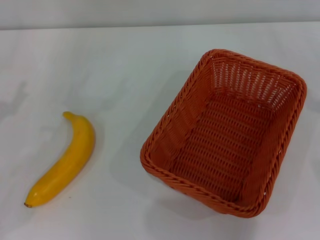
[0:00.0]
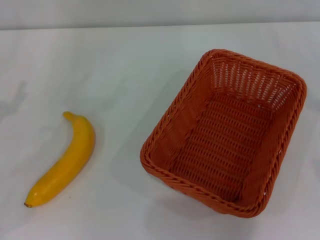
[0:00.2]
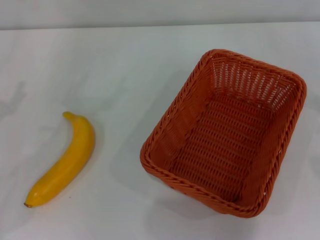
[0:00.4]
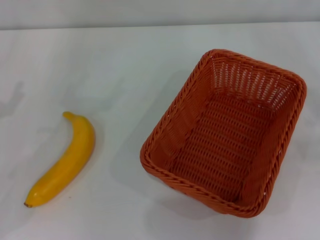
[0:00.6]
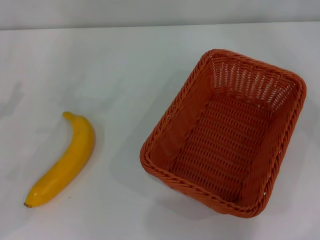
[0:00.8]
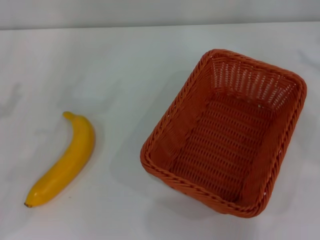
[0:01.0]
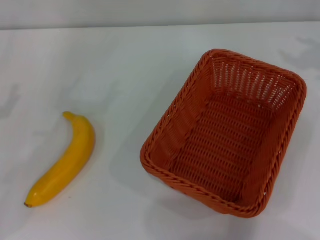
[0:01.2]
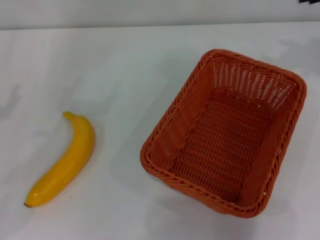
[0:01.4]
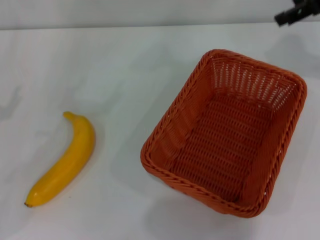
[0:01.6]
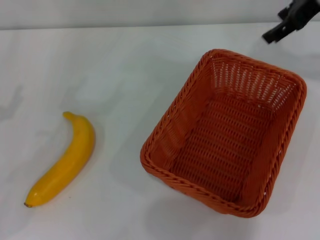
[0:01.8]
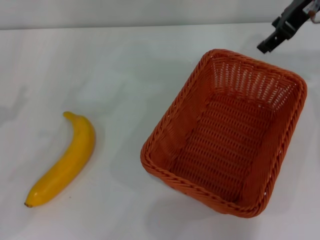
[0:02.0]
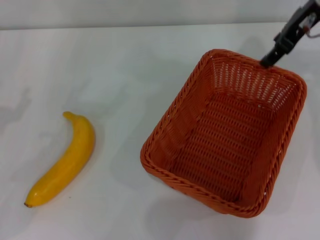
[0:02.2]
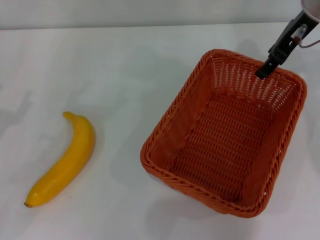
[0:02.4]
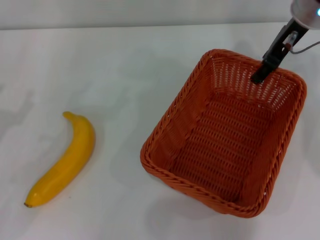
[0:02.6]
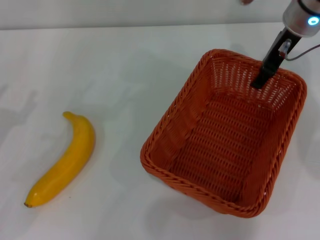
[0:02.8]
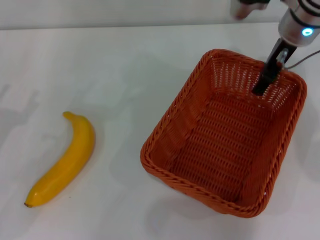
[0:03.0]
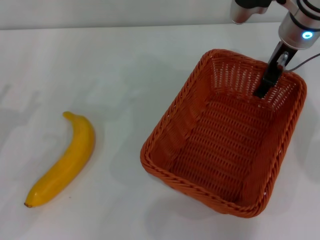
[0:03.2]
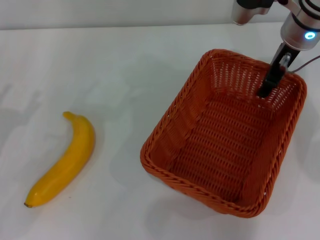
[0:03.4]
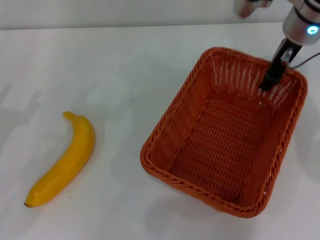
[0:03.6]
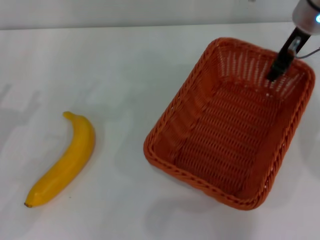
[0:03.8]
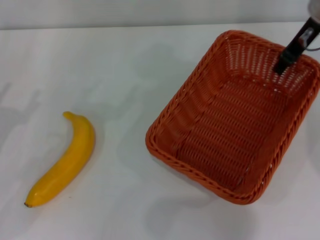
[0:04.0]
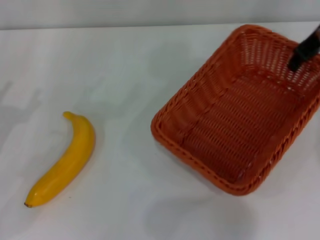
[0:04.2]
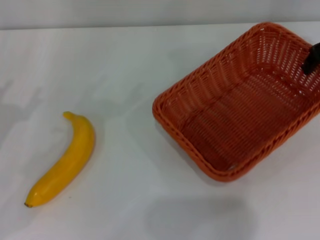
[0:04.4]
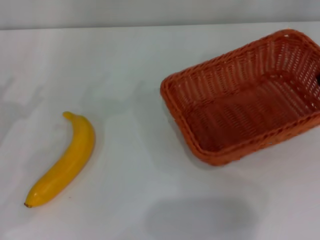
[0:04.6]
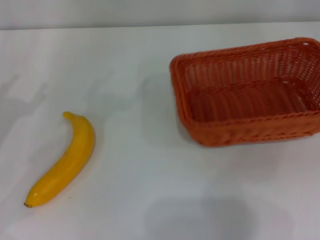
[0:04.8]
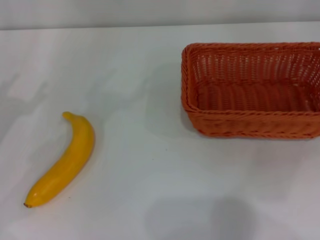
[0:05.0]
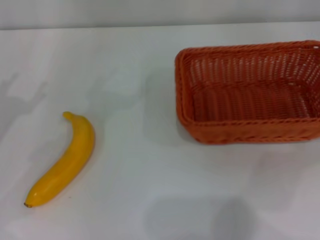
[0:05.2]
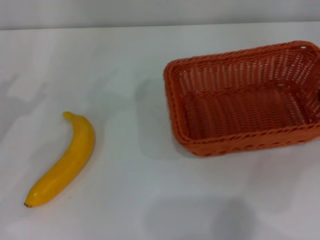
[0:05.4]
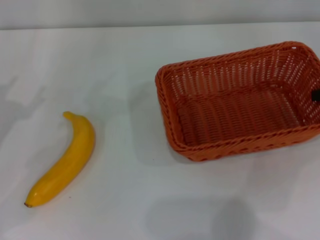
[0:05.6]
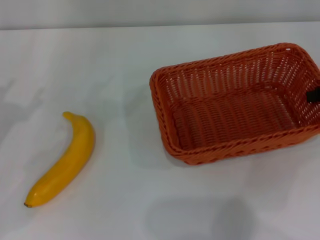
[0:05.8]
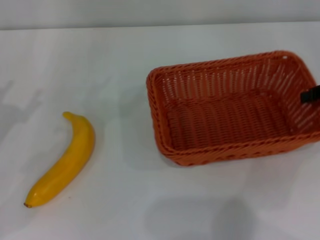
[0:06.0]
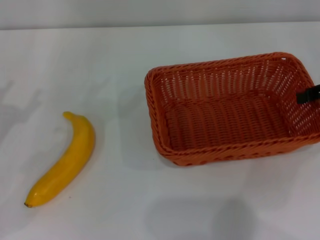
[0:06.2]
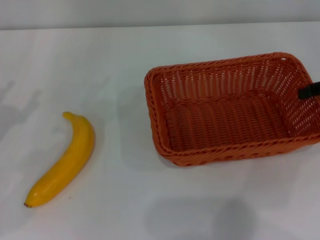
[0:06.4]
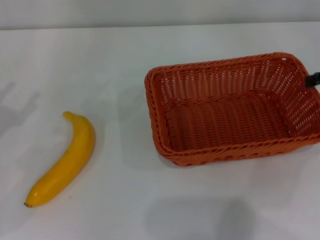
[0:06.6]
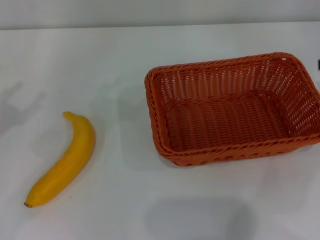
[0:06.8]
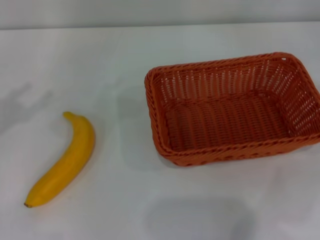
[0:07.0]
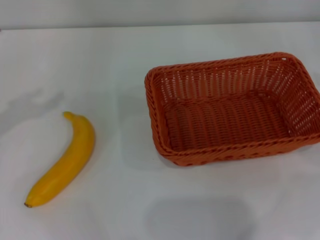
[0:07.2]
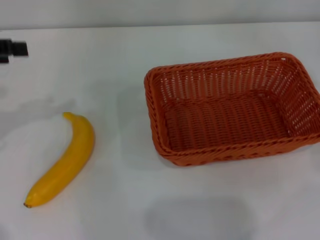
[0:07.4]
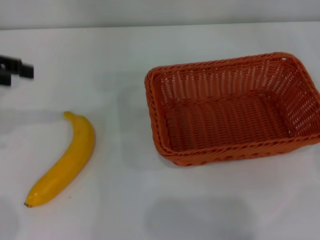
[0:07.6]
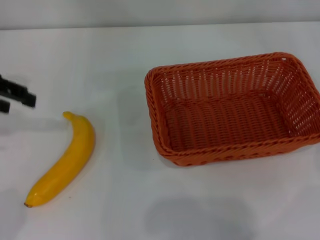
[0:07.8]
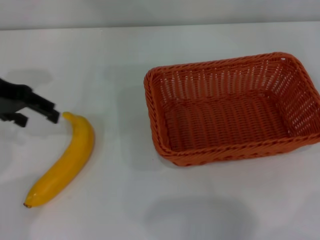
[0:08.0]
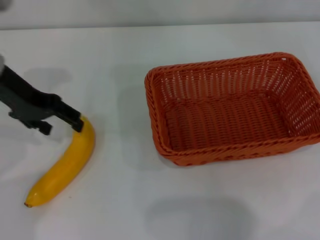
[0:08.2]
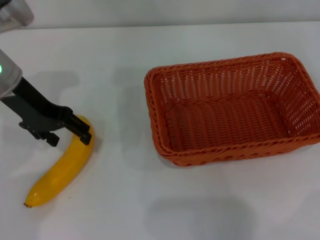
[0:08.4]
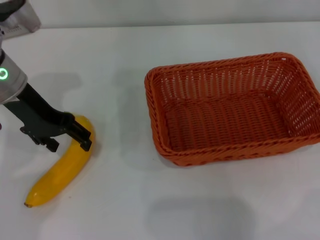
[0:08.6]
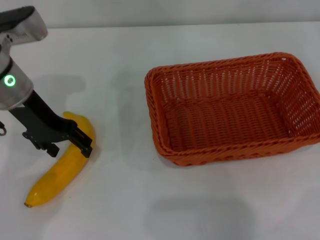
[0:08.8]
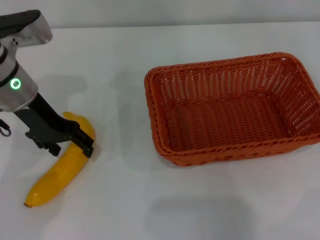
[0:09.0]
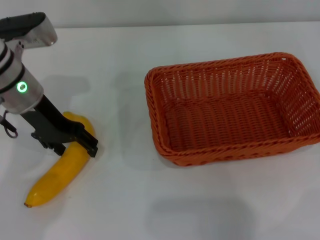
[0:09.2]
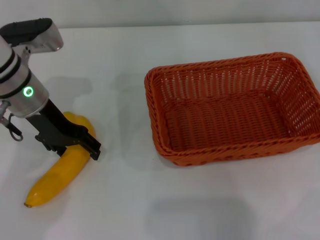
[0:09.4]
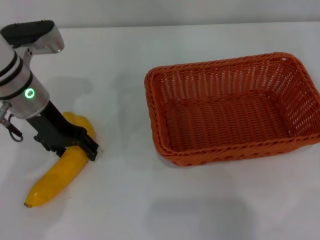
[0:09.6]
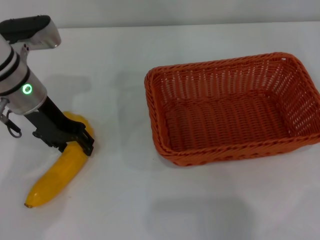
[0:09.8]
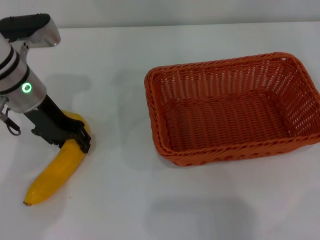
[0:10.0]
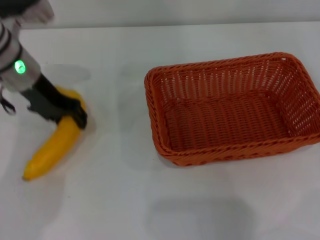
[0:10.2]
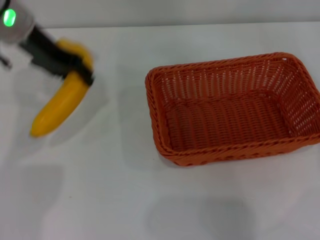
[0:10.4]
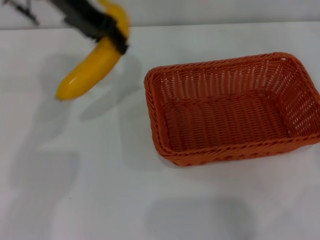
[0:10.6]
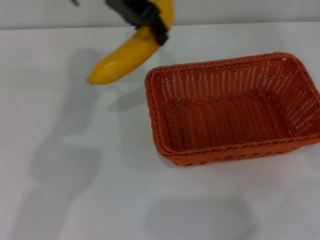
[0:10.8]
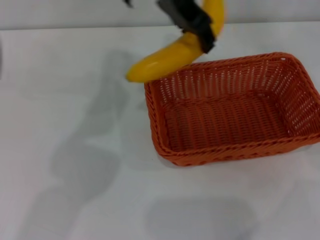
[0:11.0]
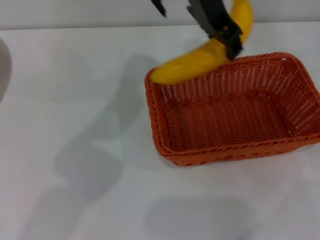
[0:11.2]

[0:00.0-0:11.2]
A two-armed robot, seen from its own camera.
Step, 0:00.0 to 0:04.2: Pick up the light basket with the right gripper.
Step, 0:04.4 to 0:06.6: Place the light basket in the center of view with the right gripper.
Step, 0:06.8 to 0:10.2: Pick up the banana with the left gripper.
0:00.0 to 0:01.6: The right gripper shifts roughly 30 cm upward, forward and to the left.
0:01.6 to 0:03.2: The right gripper shifts about 15 cm to the left and downward.
0:03.2 to 0:04.8: The right gripper heads to the right, covering roughly 20 cm, and closes.
0:04.8 to 0:06.4: The right gripper opens up.
0:06.4 to 0:08.0: The left gripper heads forward, upward and to the right, covering some 20 cm.
0:08.0 to 0:09.6: The left gripper shifts about 10 cm downward and to the right.
0:09.6 to 0:11.2: The left gripper travels to the right and upward by roughly 25 cm, and closes its fingers.

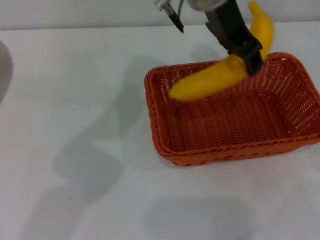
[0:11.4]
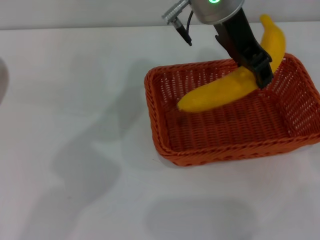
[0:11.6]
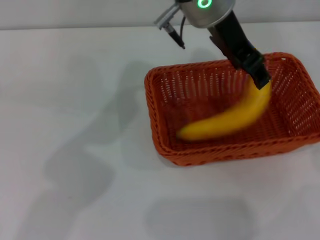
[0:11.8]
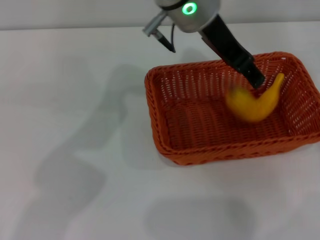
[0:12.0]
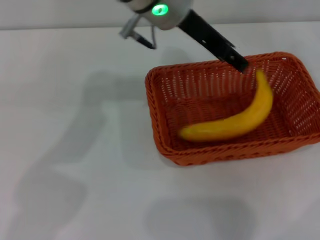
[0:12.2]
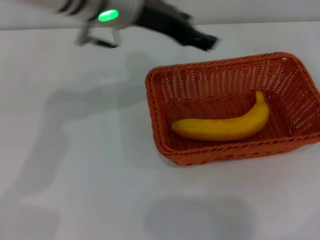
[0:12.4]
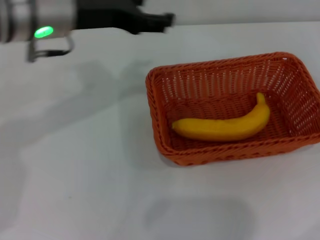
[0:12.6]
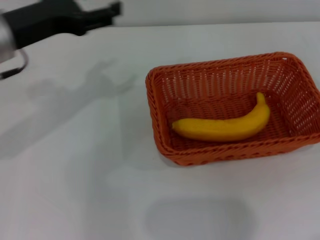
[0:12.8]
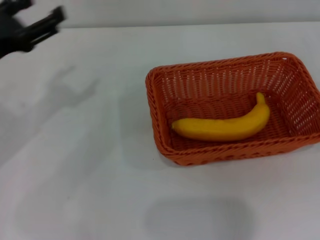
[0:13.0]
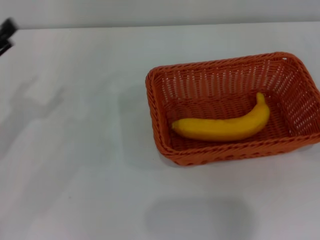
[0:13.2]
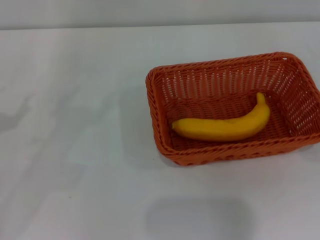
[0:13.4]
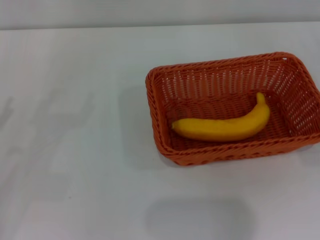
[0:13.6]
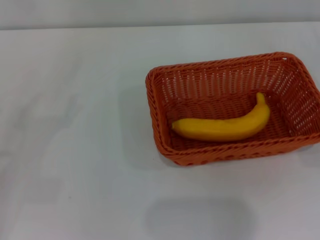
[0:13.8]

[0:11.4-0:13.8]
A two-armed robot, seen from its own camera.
0:11.4 to 0:12.6: The left gripper goes some 20 cm to the left, and opens, while the right gripper travels downward by about 5 cm.
0:12.6 to 0:13.8: The left gripper goes about 30 cm to the left, downward and backward; the right gripper heads downward, covering about 10 cm.

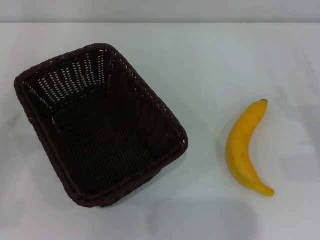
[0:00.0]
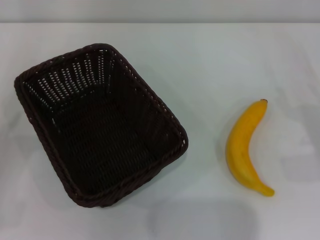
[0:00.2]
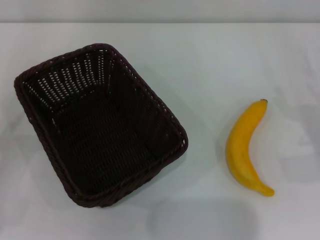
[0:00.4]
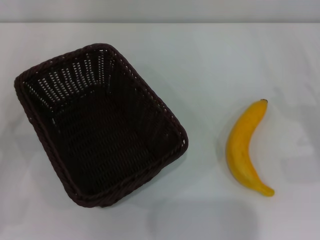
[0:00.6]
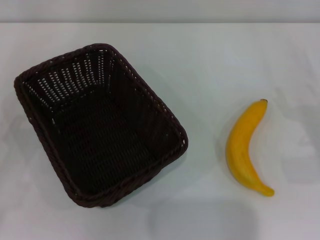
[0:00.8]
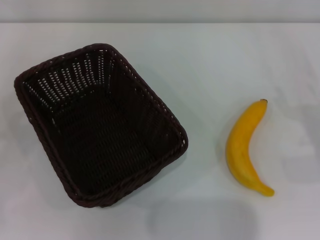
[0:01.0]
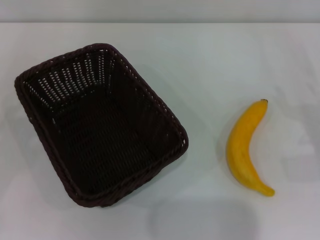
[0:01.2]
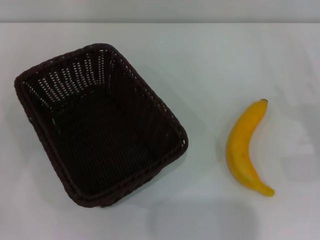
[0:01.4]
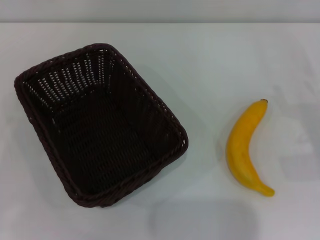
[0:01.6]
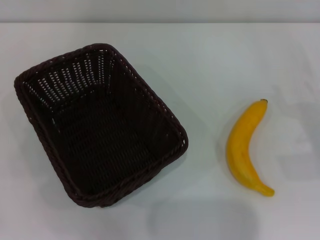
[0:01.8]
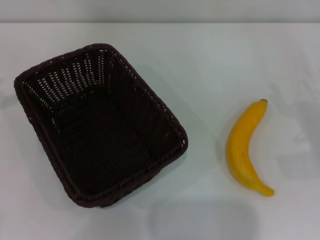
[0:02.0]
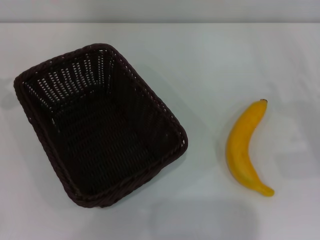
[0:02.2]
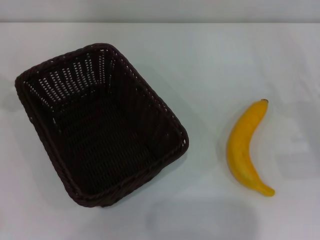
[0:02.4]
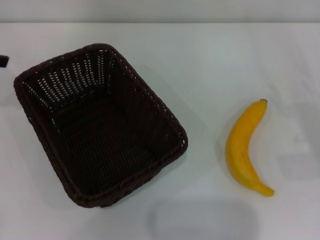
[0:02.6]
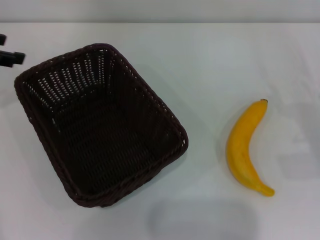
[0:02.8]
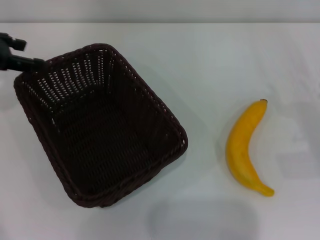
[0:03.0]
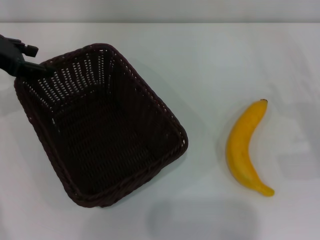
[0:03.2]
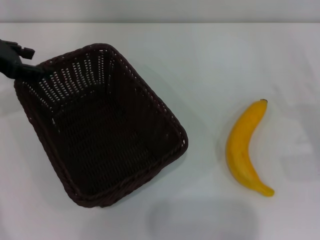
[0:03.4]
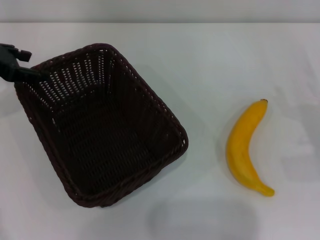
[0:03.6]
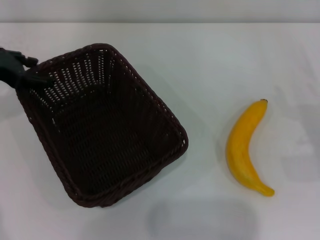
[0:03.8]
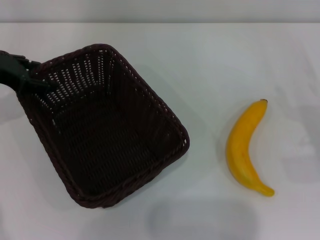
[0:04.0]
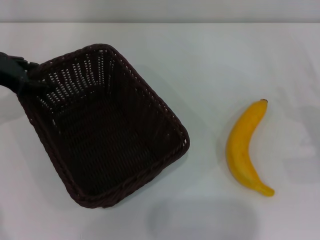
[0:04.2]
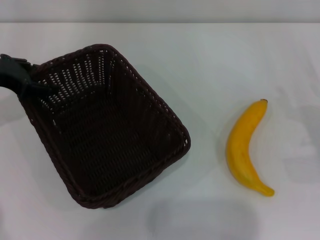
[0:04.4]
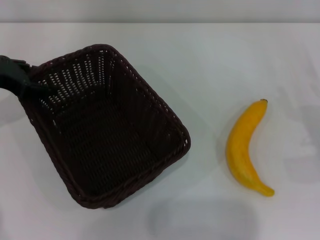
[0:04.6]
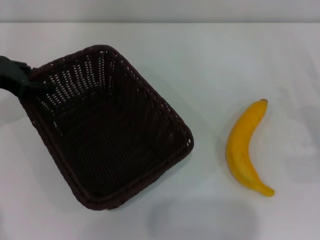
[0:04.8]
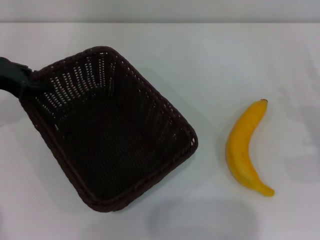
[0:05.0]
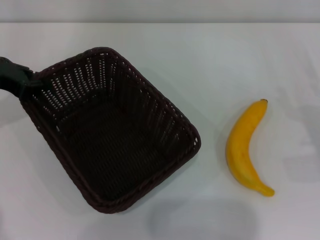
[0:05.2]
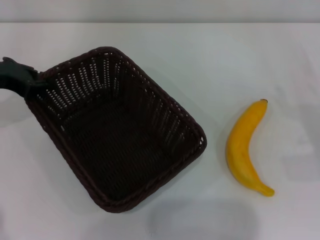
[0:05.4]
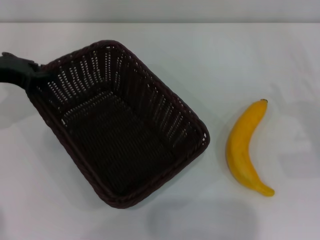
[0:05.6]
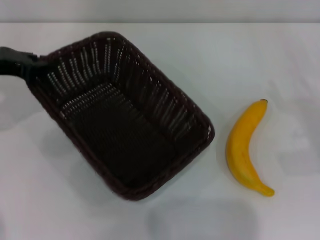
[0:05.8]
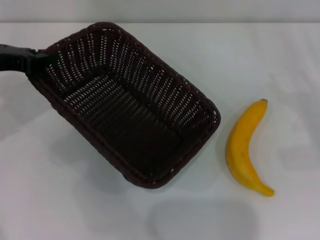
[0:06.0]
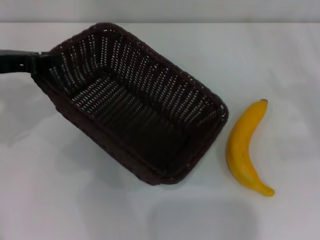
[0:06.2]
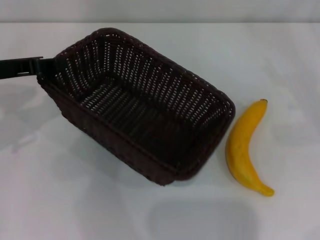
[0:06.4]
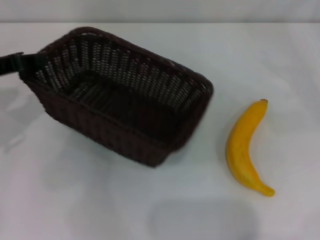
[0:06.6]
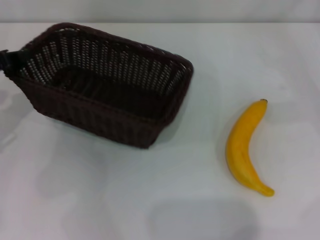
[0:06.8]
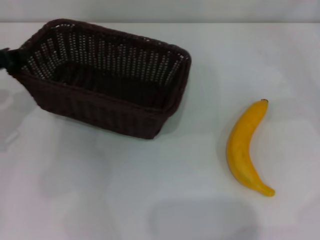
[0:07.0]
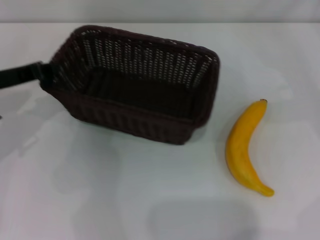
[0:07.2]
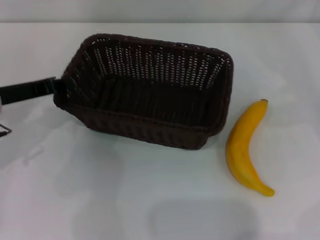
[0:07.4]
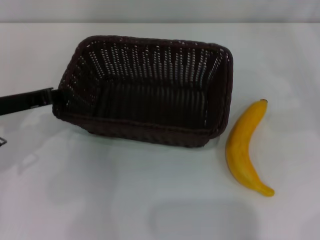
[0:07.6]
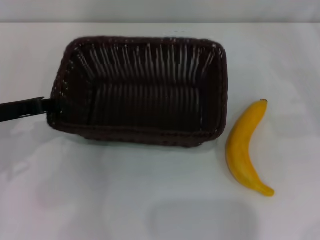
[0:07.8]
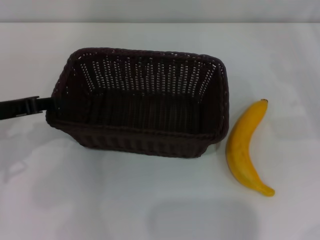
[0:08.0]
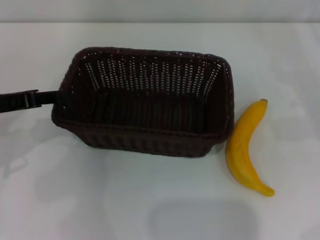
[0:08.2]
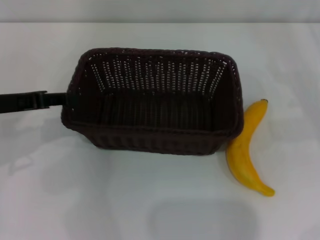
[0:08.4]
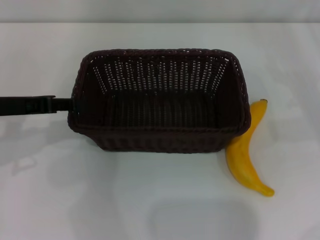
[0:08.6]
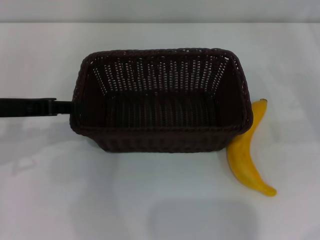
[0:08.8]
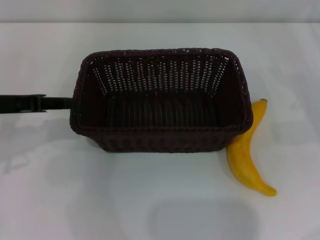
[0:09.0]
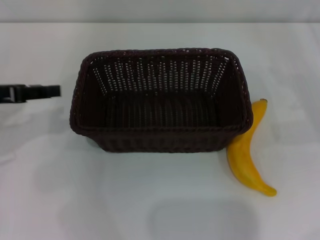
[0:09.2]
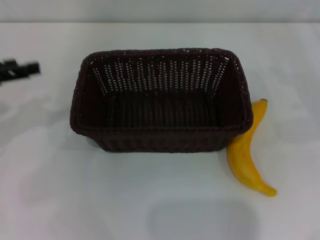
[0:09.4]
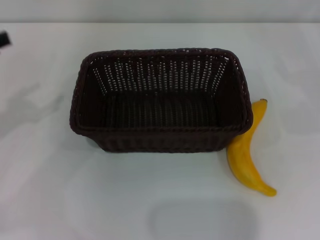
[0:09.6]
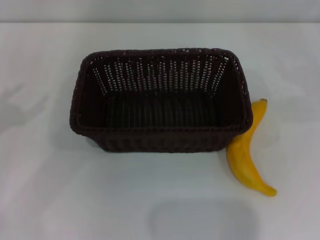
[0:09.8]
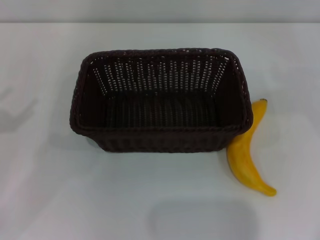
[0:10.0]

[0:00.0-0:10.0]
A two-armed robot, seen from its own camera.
Step, 0:00.0 to 0:06.0: Pick up the dark basket with the left gripper.
Step, 0:06.2 to 0:08.8: Place the dark basket in the center of view with the left gripper.
0:02.8 to 0:04.2: The left gripper moves downward, about 5 cm.
0:04.2 to 0:05.8: The left gripper closes up.
0:05.8 to 0:07.2: The left gripper changes place by some 5 cm. The right gripper moves forward and upward, approximately 10 cm.
0:07.2 to 0:08.6: The left gripper opens.
0:08.6 to 0:10.0: The left gripper moves to the left and backward, some 15 cm, and opens, while the right gripper travels upward and to the right by some 15 cm.
